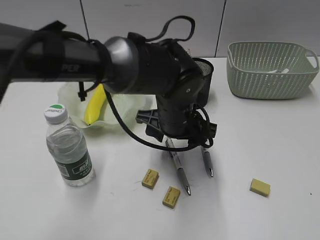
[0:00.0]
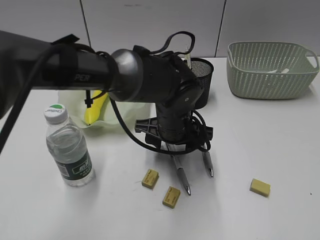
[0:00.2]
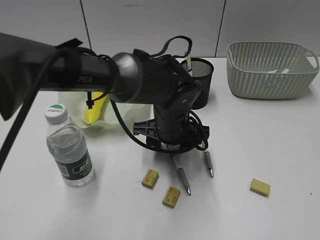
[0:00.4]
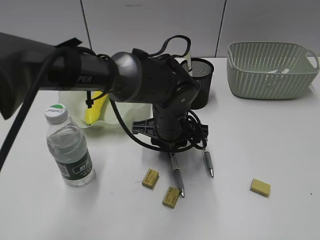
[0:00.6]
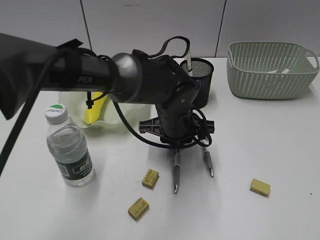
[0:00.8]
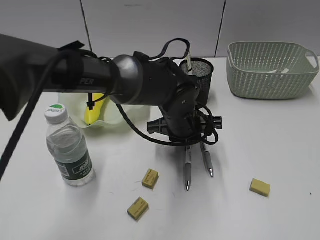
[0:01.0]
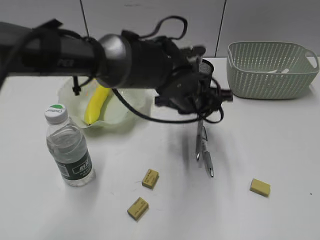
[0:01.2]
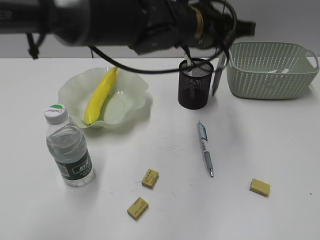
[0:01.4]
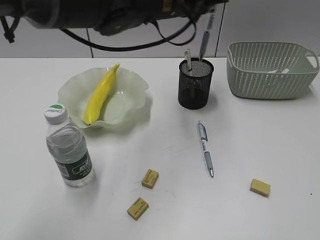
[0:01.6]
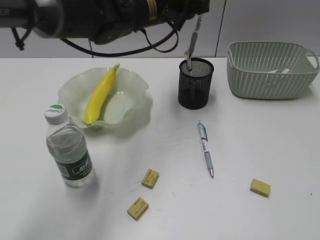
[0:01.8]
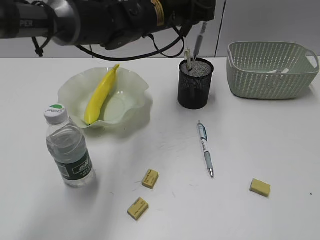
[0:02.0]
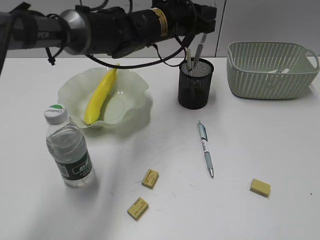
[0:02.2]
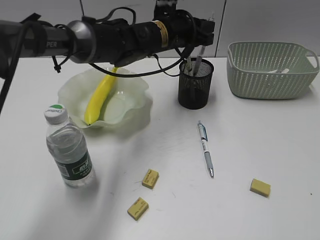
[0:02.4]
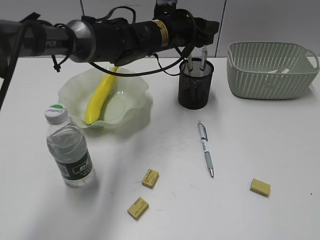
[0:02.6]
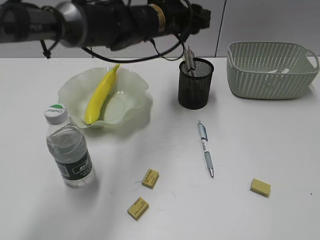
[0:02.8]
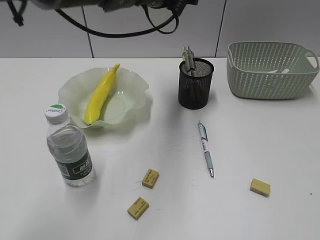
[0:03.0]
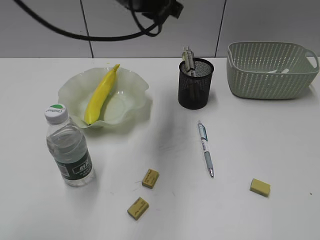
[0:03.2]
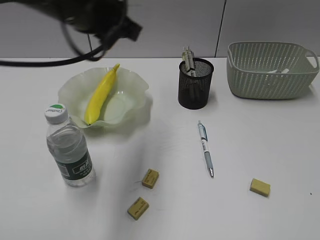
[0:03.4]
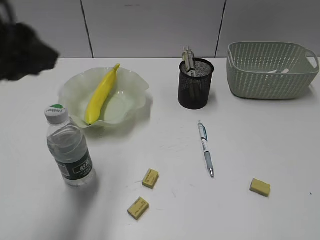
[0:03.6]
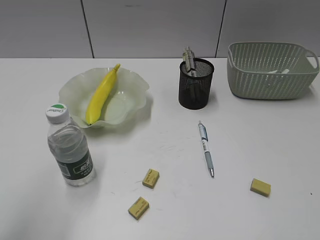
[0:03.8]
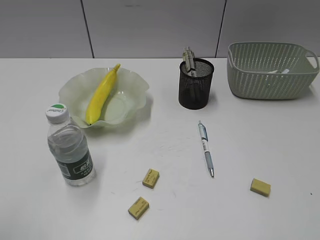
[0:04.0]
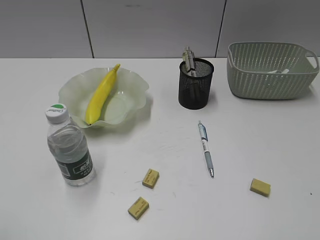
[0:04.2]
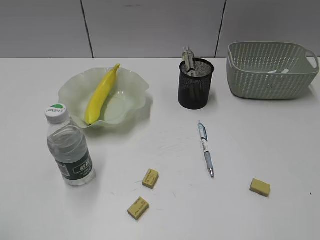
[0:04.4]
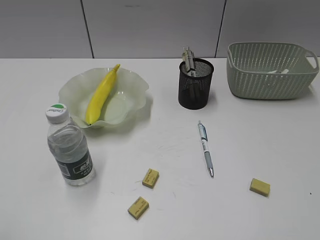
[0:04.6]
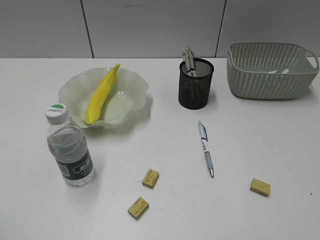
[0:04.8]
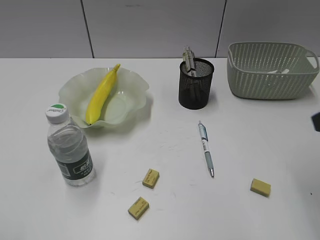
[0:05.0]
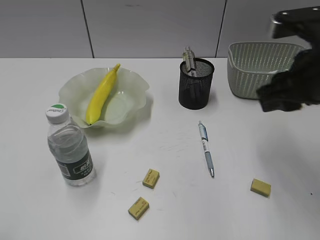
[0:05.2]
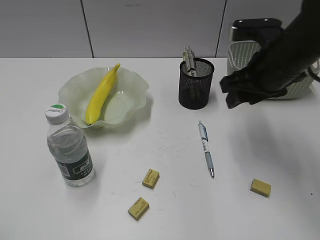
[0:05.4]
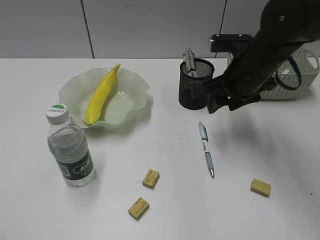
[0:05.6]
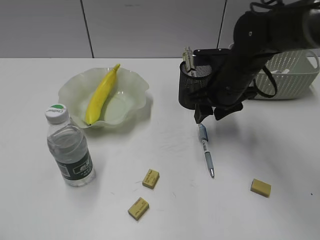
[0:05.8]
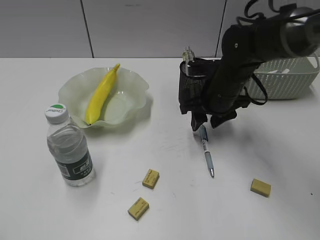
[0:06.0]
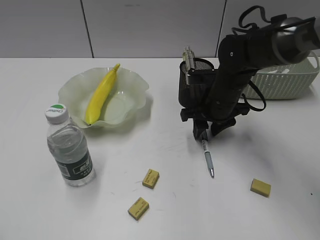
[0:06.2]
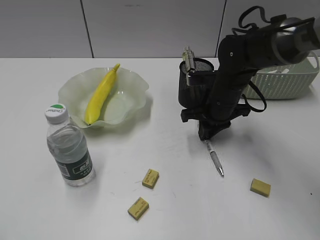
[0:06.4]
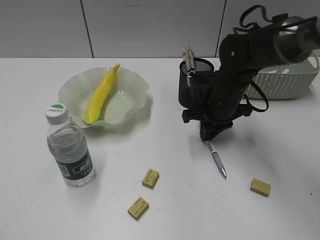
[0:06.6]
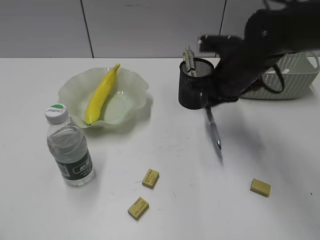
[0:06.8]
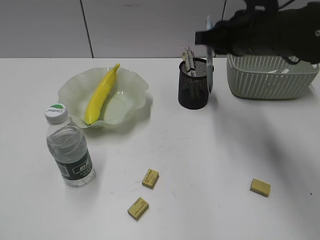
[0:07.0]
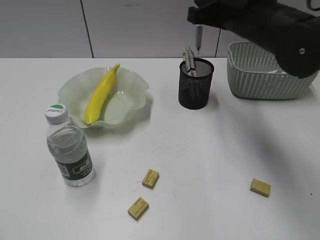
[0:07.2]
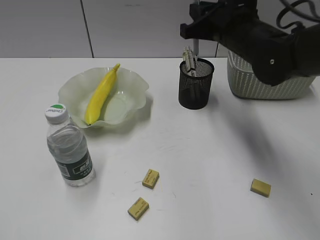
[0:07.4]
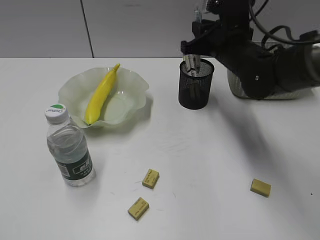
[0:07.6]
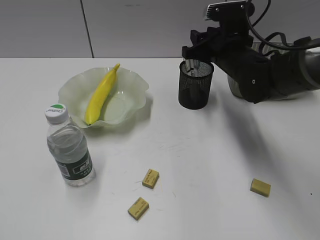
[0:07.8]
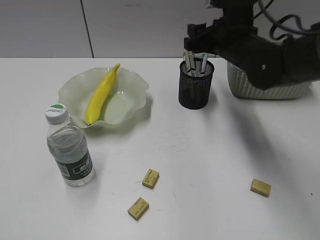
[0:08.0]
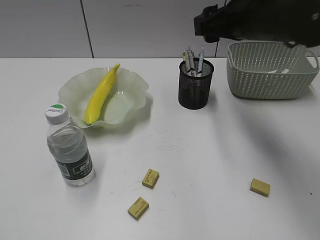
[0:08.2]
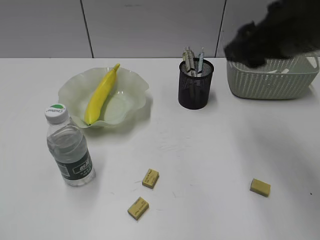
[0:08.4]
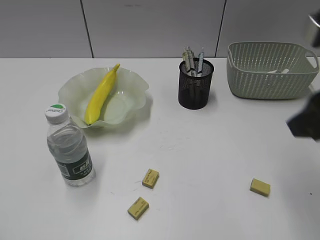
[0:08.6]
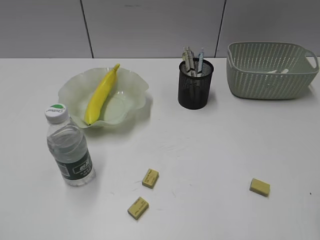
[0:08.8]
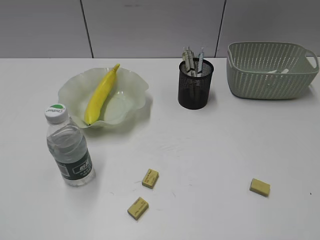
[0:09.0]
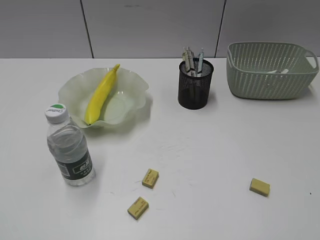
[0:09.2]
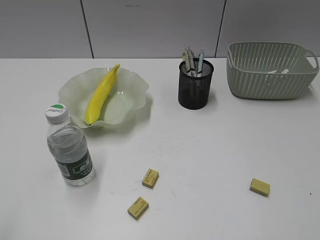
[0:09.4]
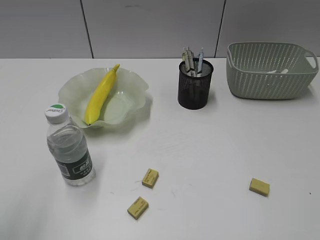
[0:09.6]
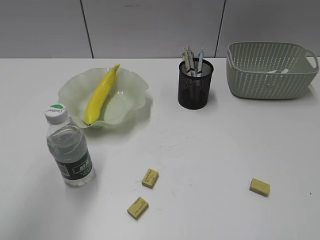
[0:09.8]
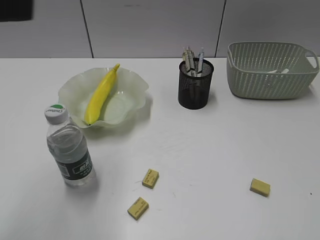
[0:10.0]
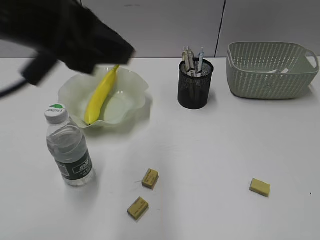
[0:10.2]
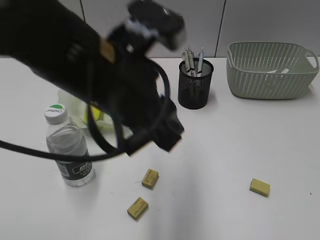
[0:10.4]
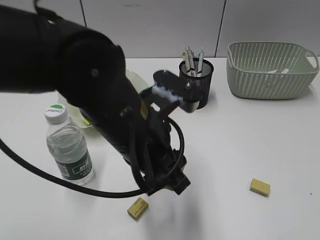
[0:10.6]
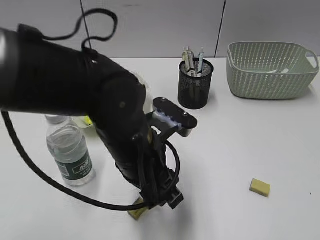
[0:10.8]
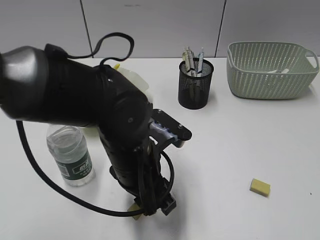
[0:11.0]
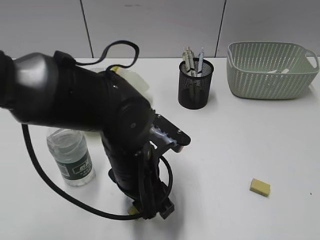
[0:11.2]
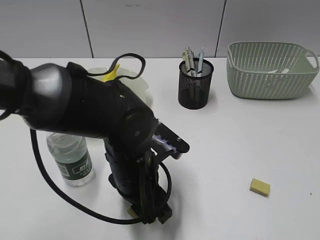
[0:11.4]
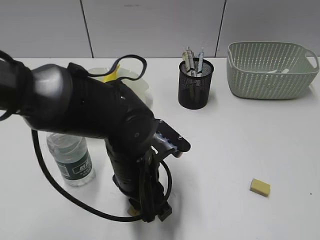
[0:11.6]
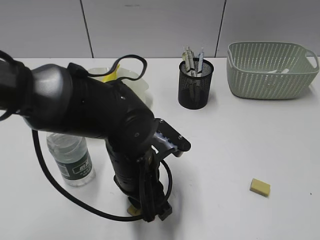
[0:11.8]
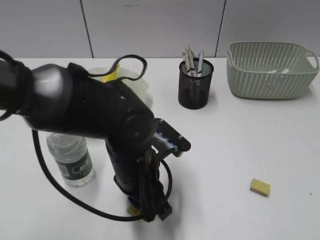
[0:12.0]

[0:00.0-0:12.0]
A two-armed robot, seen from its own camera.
Step, 0:00.8 to 0:02.6: Place the gray pen in pen holder with left gripper.
Step, 0:02.8 to 0:06.4: Grasp the blue pen with right gripper.
Step, 0:06.6 to 0:08.0: Place the blue pen in pen holder with right gripper.
Step, 0:08.2 to 0:11.8: Grasp the eraser with left gripper.
0:00.0 to 0:01.6: The left gripper goes roughly 15 cm upward and forward, and closes.
0:01.6 to 0:03.0: The left gripper reaches roughly 10 cm downward, then returns, and opens up.
0:03.0 to 0:04.4: The left gripper goes about 50 cm backward and to the left.
0:04.4 to 0:06.0: The right gripper travels forward, to the left and downward by roughly 50 cm, and opens. The left gripper closes its fingers.
0:06.0 to 0:07.6: The right gripper heads upward, covering some 5 cm, and closes its fingers.
0:07.6 to 0:09.0: The right gripper travels backward and to the right by some 40 cm, and opens.
0:09.0 to 0:10.4: The right gripper moves some 5 cm. The left gripper shifts some 35 cm to the right and forward.
0:10.4 to 0:12.0: The left gripper travels downward by roughly 15 cm.

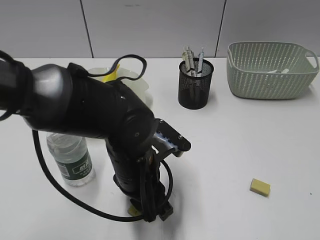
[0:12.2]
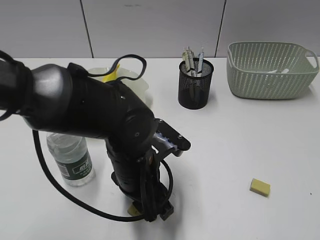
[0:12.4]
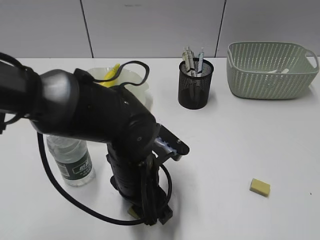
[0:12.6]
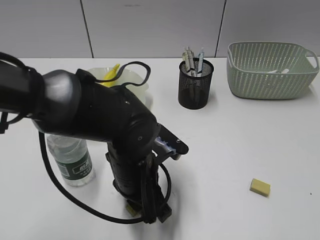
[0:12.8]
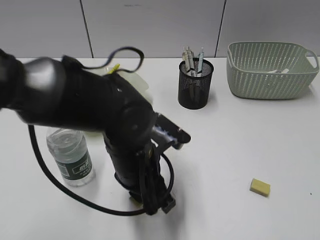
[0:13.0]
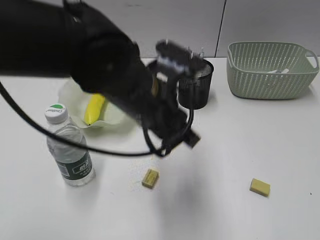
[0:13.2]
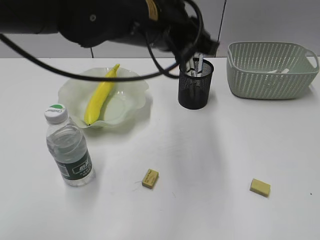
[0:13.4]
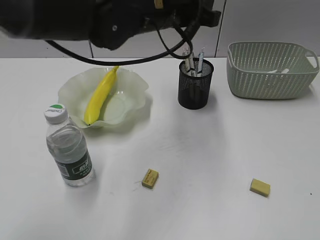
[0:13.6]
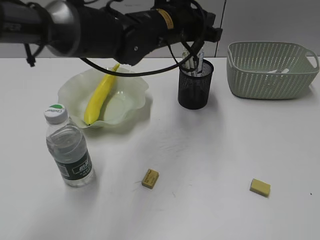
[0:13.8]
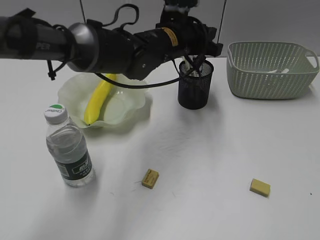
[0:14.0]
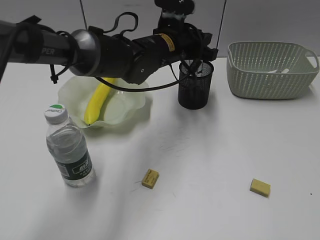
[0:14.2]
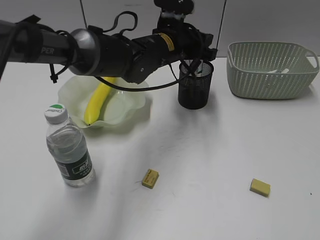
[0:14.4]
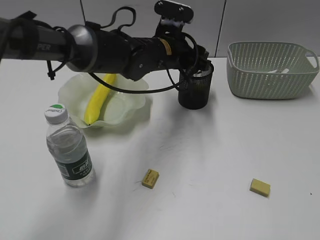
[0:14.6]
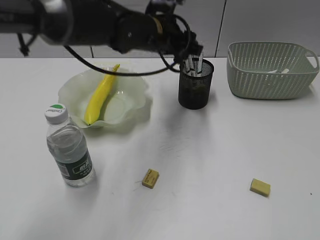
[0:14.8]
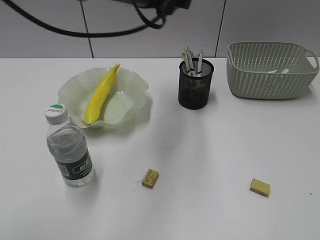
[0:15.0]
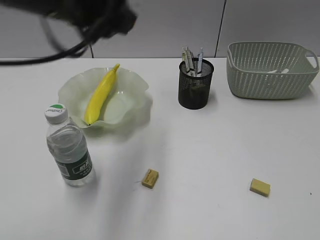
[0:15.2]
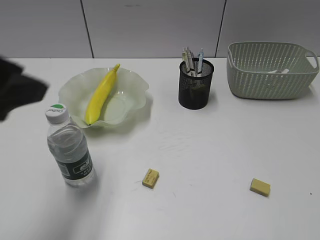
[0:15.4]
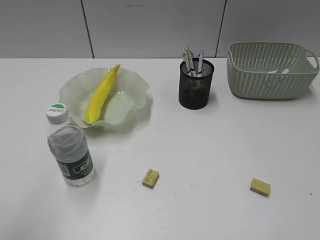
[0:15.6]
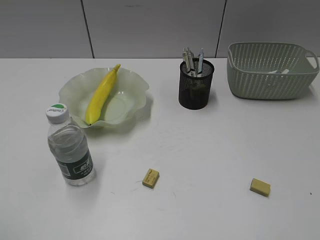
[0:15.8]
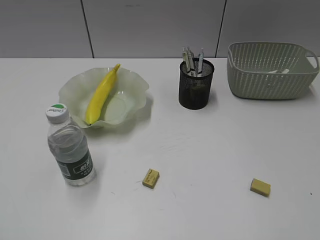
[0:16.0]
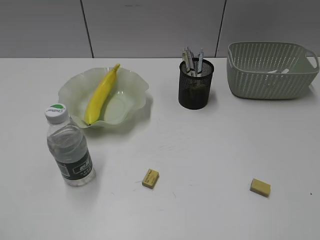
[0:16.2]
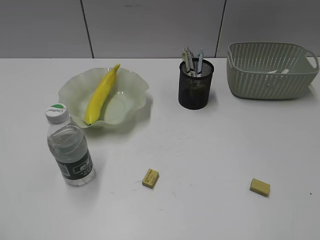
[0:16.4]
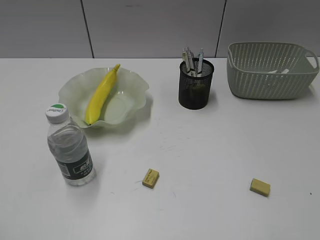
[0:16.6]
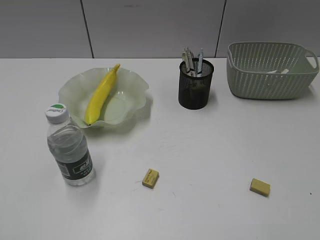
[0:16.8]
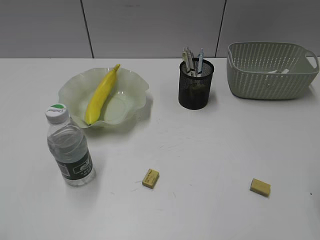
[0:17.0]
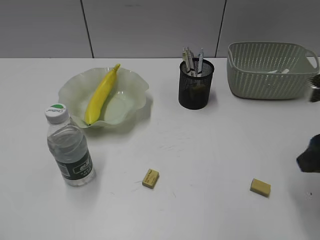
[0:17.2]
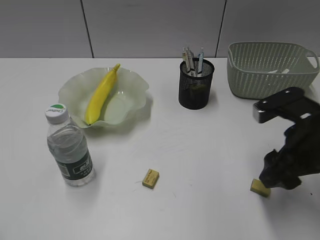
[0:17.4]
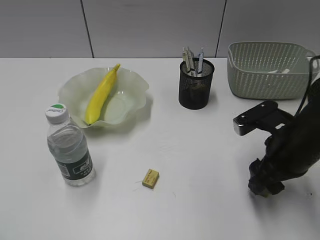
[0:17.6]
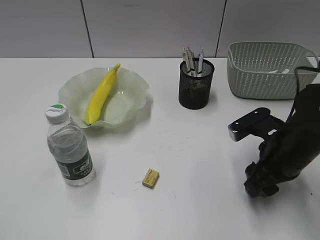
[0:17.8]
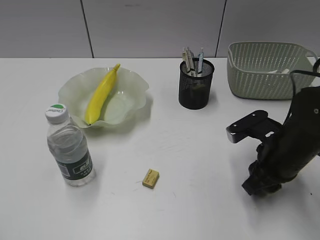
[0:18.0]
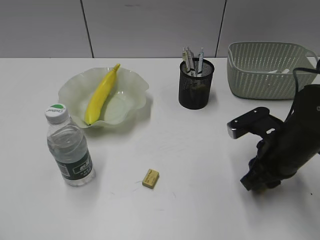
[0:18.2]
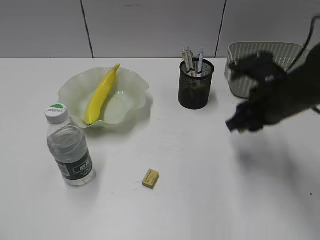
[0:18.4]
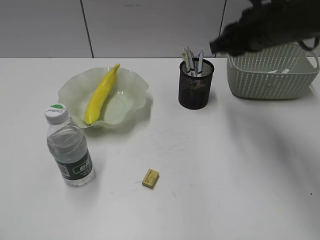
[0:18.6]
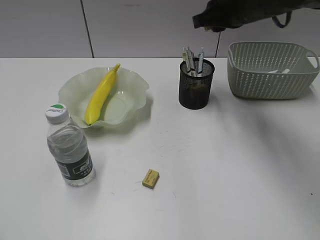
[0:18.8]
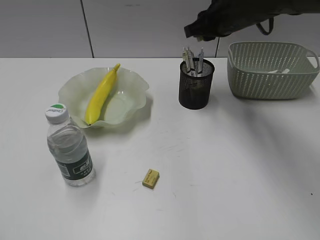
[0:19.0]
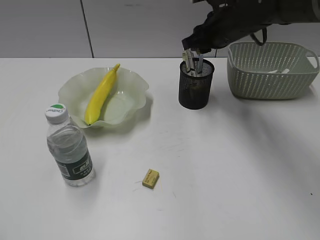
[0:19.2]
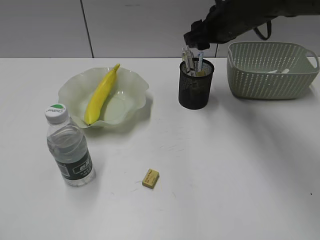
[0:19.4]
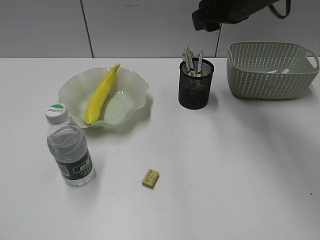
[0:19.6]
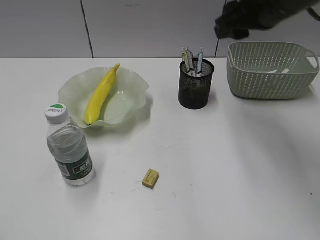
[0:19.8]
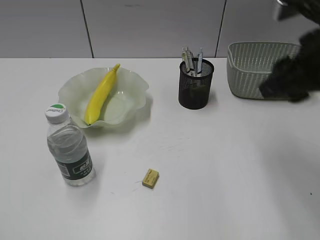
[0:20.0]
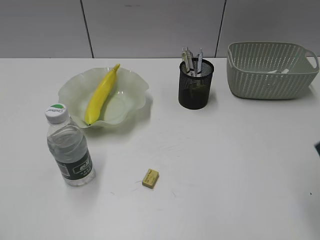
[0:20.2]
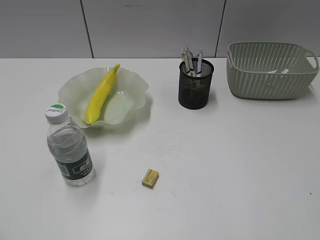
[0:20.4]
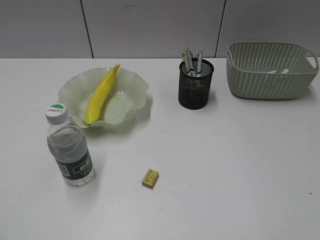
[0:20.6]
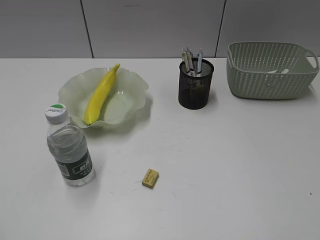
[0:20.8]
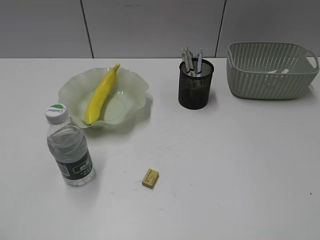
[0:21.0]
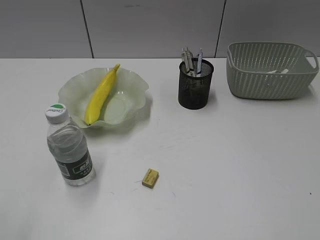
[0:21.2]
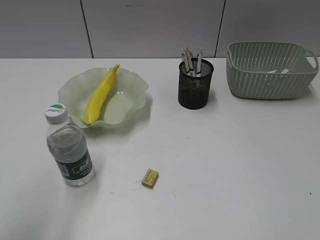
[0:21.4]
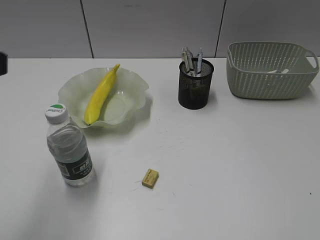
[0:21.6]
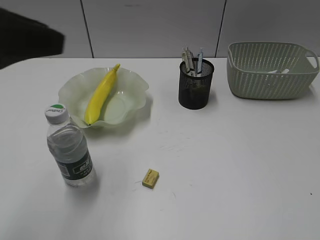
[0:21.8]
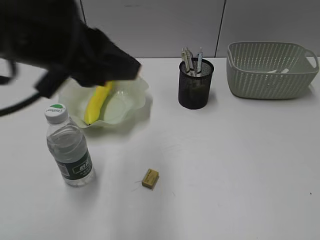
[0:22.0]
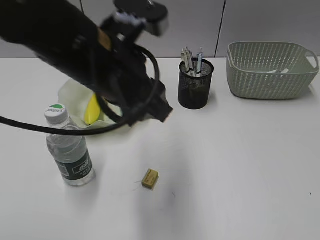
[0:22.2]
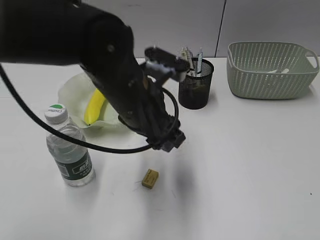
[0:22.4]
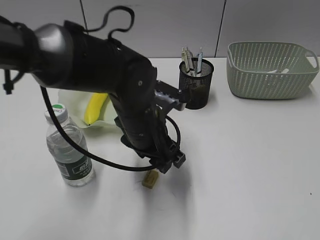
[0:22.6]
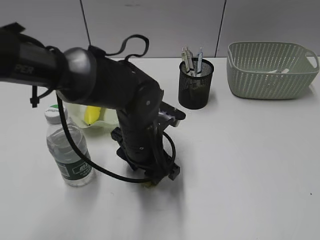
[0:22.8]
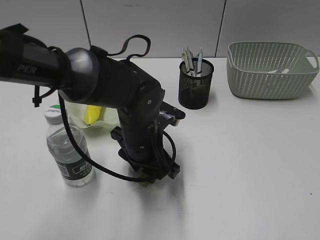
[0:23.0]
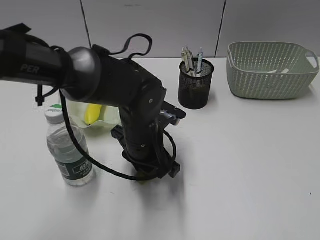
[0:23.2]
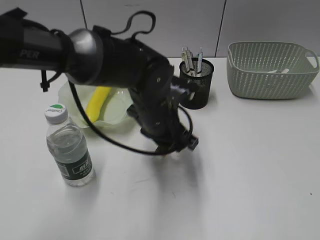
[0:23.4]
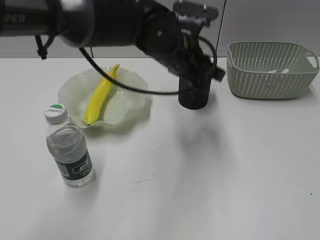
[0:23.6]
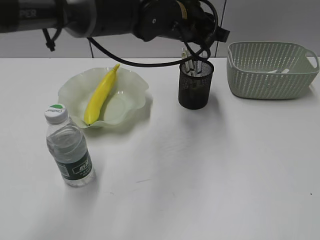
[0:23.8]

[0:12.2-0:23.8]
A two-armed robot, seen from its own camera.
Step, 0:12.2 to 0:14.6: Place the eraser in pen holder with left gripper.
Step, 0:14.8 to 0:18.0: Grasp the eraser with right gripper.
Step, 0:18.2 to 0:19.4: Place the eraser in pen holder with right gripper.
Step, 0:19.6 to 0:23.2: Grasp the eraser with left gripper.
0:12.2 to 0:13.6: The left gripper shifts about 20 cm upward and forward.
0:13.6 to 0:15.0: The left gripper reaches approximately 10 cm downward, then returns, and opens.
0:15.0 to 0:16.6: The left gripper travels backward and to the left by some 50 cm.
0:16.6 to 0:18.0: The right gripper heads forward, downward and to the left, covering approximately 35 cm, and opens, then closes once more.
0:18.0 to 0:19.4: The right gripper travels forward, upward and to the left by about 25 cm, and opens up.
0:19.4 to 0:21.0: The right gripper shifts about 50 cm backward and to the right.
0:21.0 to 0:22.4: The left gripper shifts approximately 40 cm to the right and forward.
0:22.4 to 0:23.8: The left gripper heads forward and to the right, covering roughly 15 cm, and closes up.
